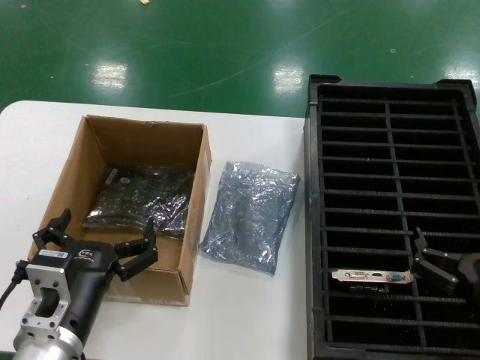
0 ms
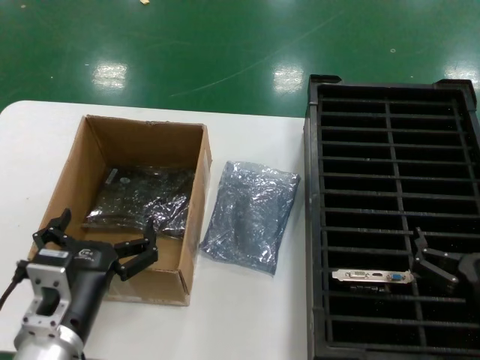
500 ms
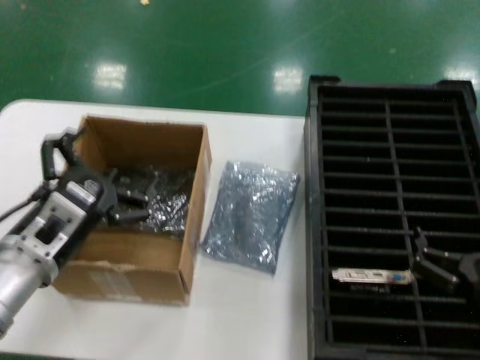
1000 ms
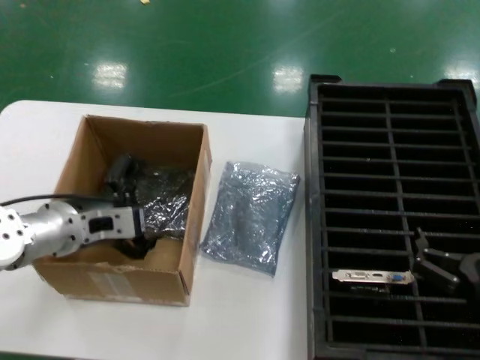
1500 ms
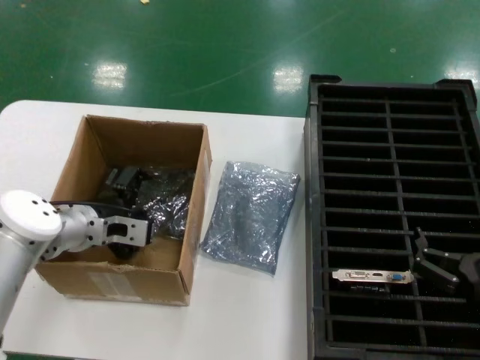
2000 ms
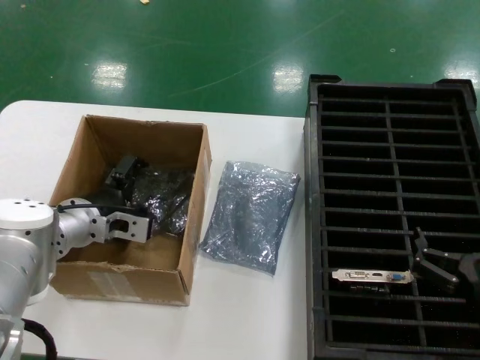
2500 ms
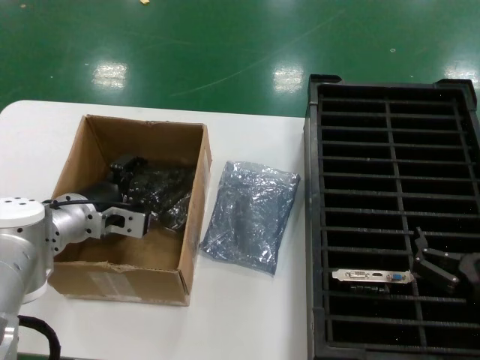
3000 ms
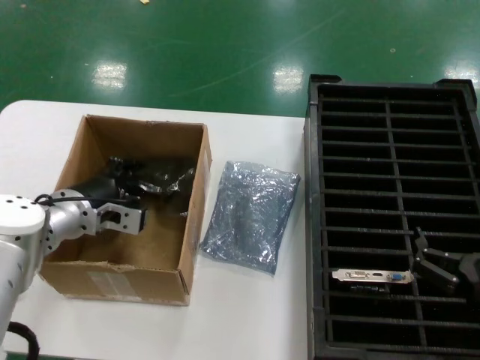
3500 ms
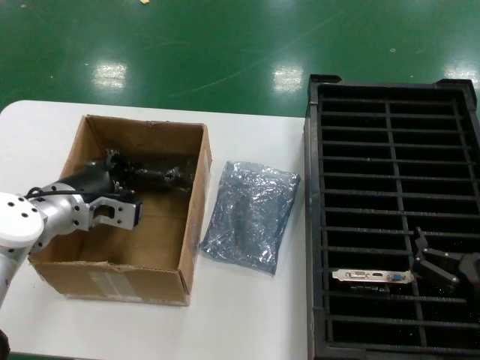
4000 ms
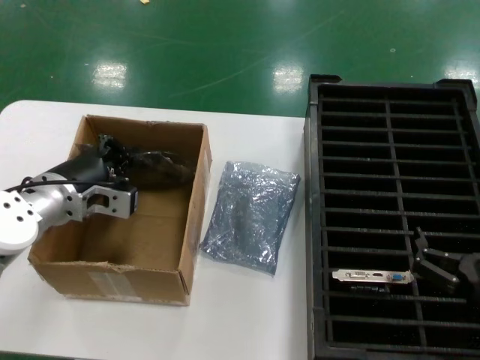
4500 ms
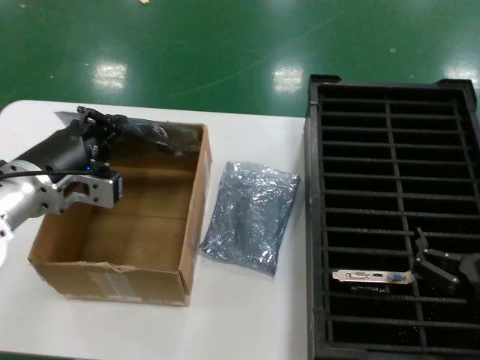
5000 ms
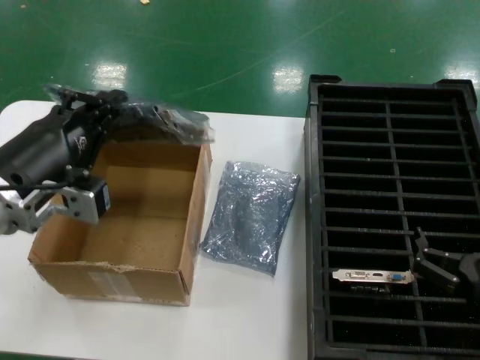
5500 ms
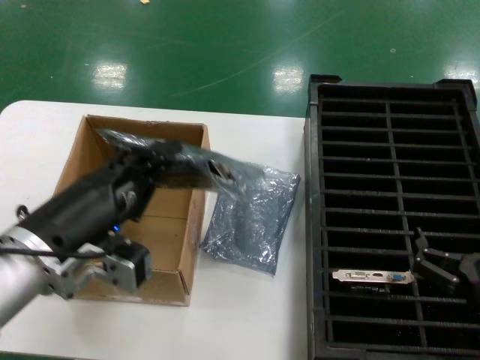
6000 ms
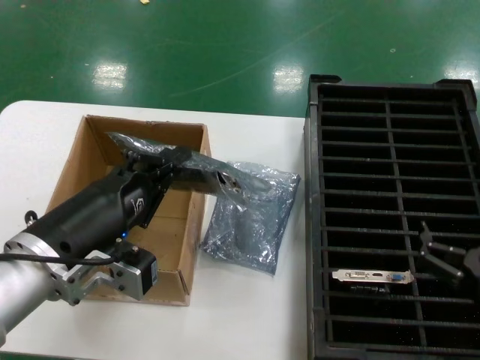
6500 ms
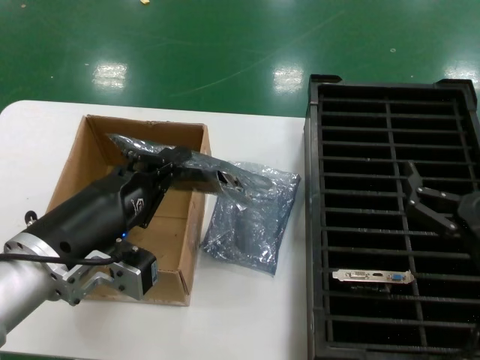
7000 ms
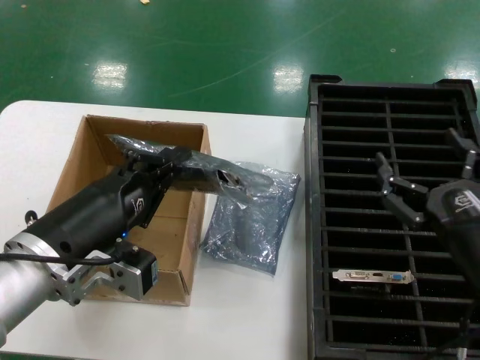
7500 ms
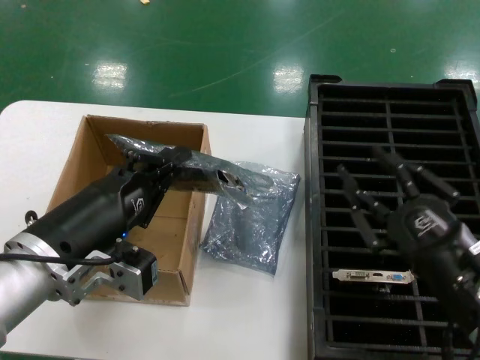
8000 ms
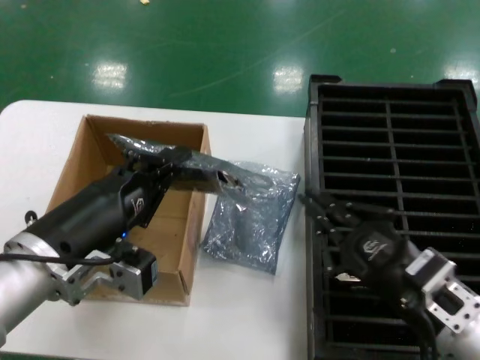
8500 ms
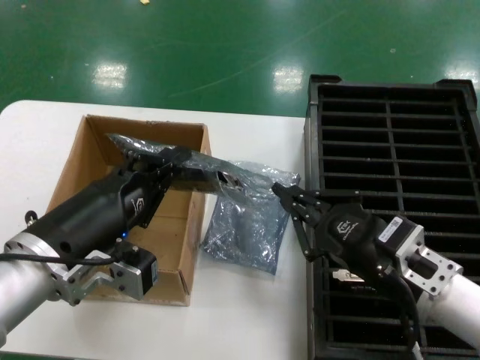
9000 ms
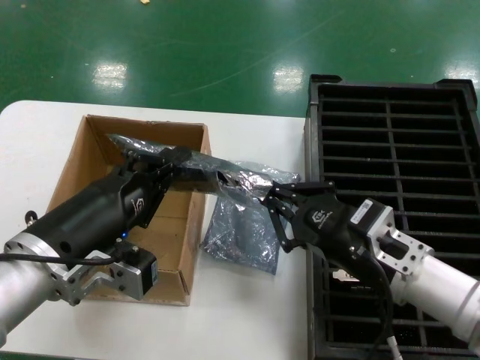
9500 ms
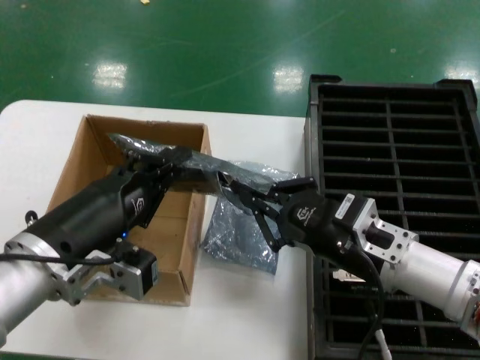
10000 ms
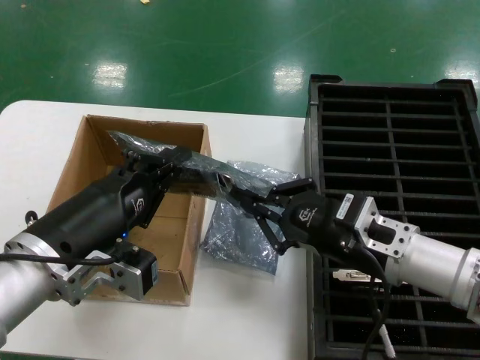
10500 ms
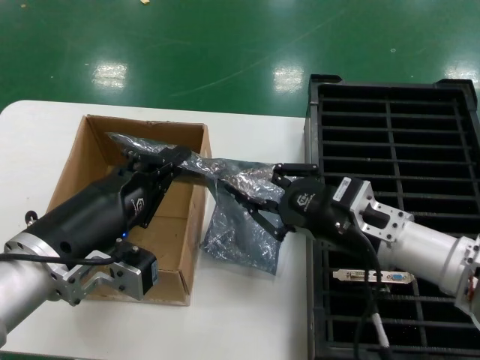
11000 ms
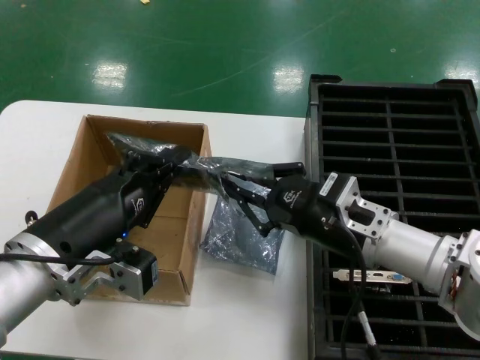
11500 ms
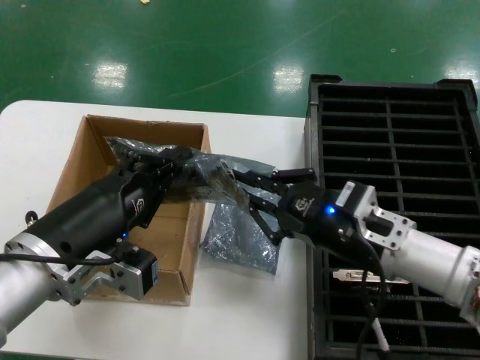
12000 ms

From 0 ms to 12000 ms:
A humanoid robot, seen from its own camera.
Task of the whole recording: take out graphics card from box remove packaging put into black container.
Step, from 0 ms to 3500 ms: Grasp the bag.
Step, from 4000 ms to 6500 ms: Lift the bag.
From 0 ms to 2000 ms: The left hand moves forward, approximately 20 cm.
From 2000 ms to 4000 ms: The hands move only a little.
From 4000 ms to 6000 ms: The left hand shifts approximately 20 cm backward.
From 6000 ms to 8000 ms: The right hand goes roughly 5 cm upward.
From 8000 ms to 10000 ms: The right hand travels forward and to the left by some 10 cm.
From 10000 ms to 12000 ms: The hands stay close to where they were, moving slightly.

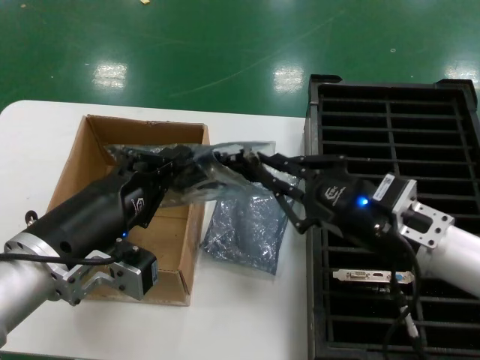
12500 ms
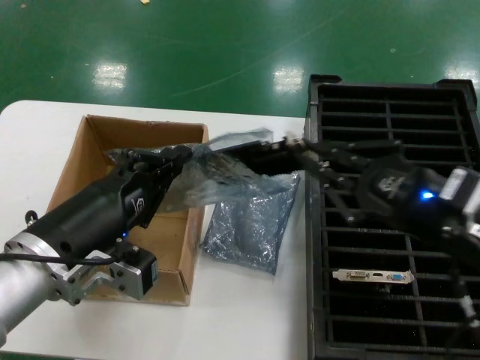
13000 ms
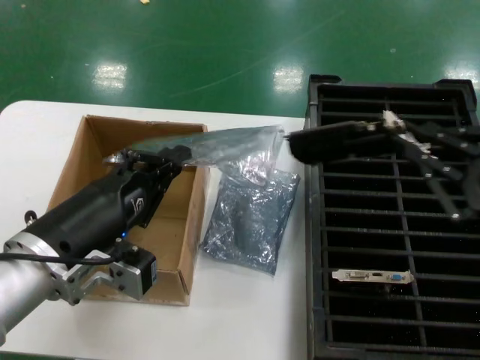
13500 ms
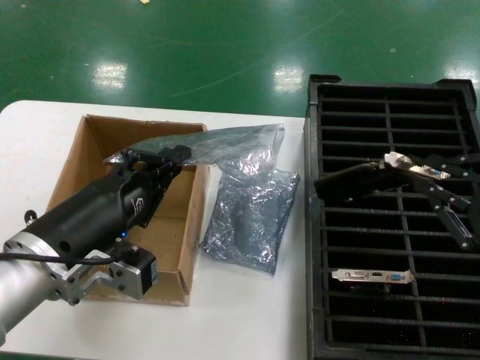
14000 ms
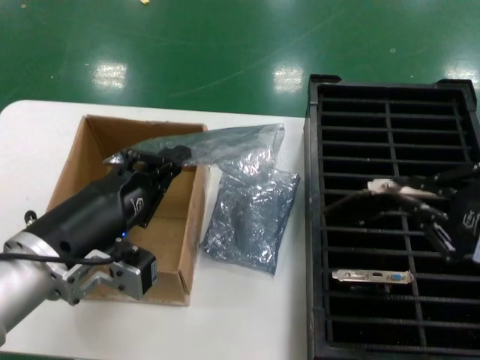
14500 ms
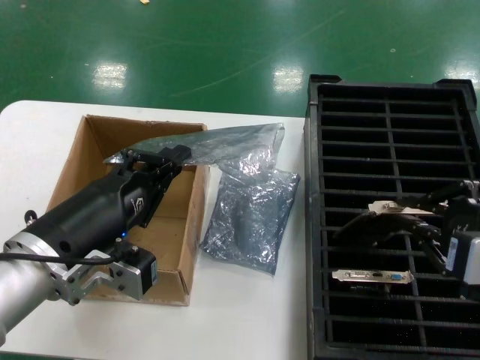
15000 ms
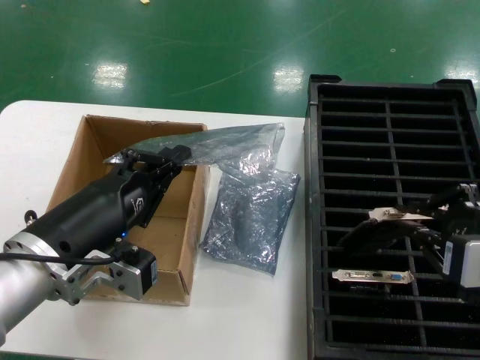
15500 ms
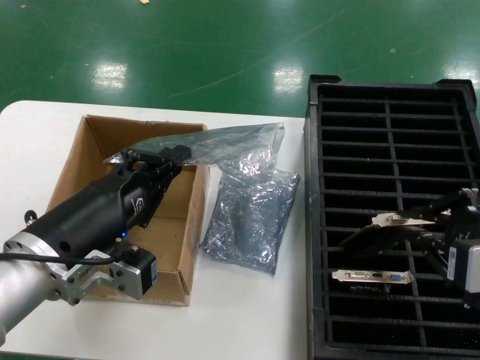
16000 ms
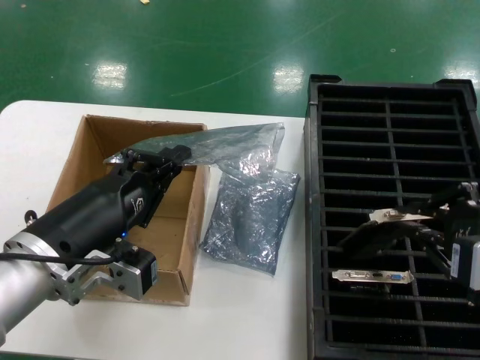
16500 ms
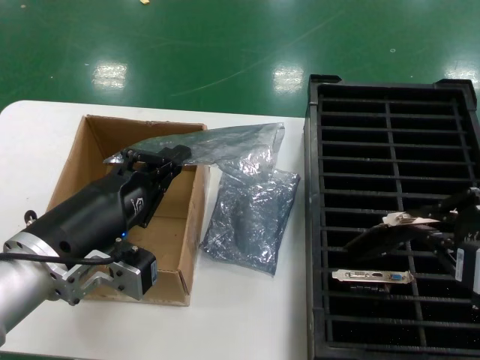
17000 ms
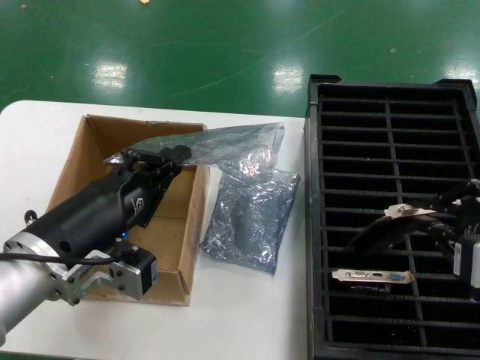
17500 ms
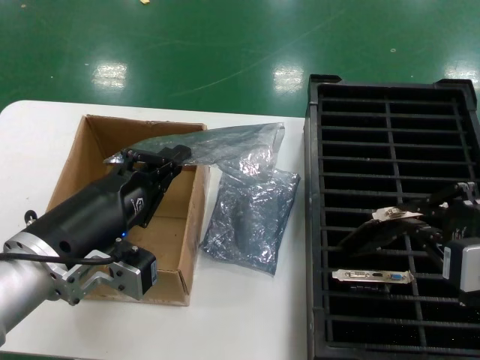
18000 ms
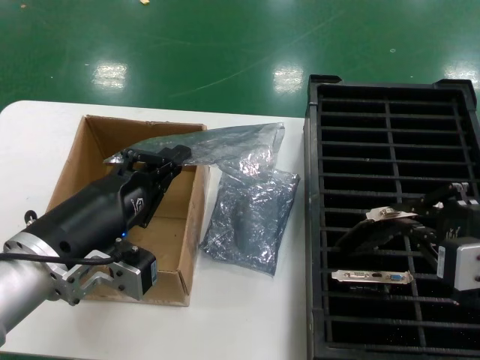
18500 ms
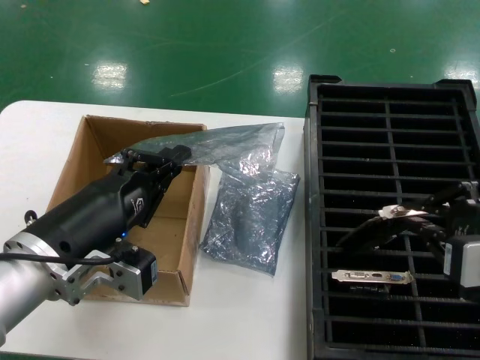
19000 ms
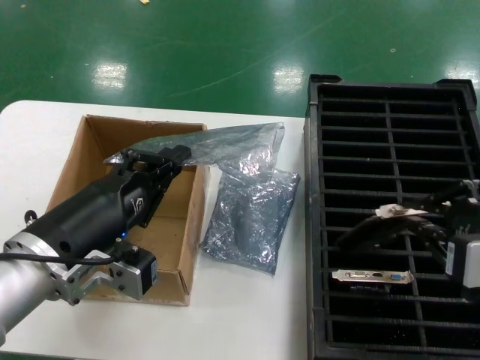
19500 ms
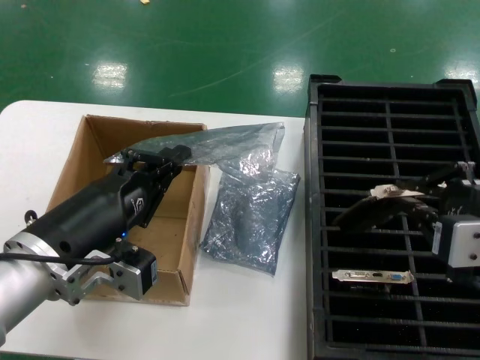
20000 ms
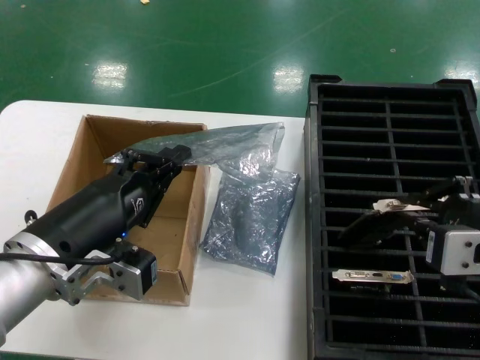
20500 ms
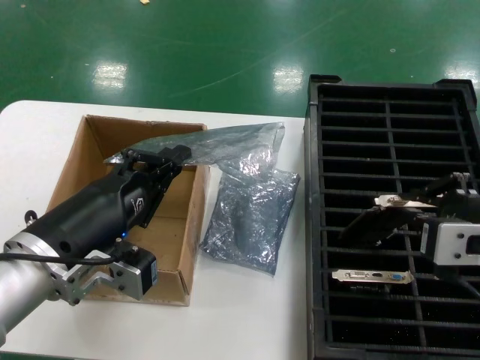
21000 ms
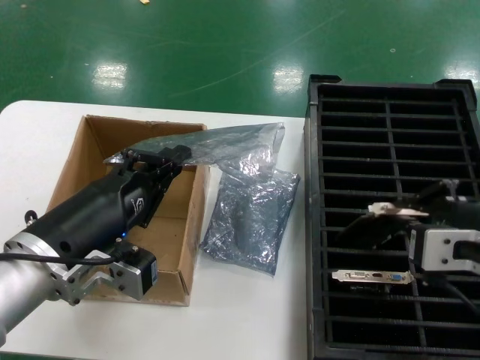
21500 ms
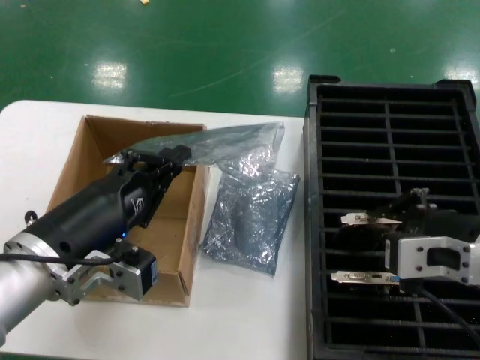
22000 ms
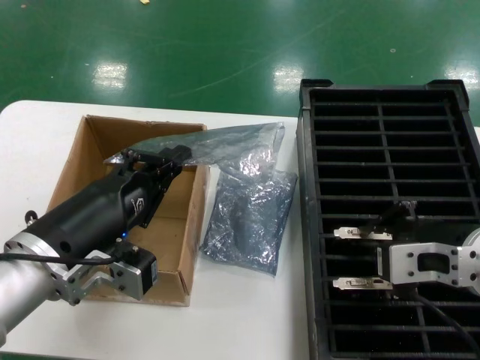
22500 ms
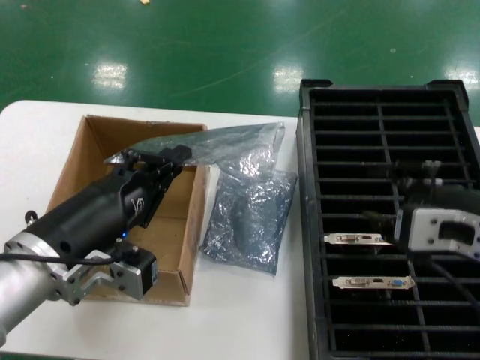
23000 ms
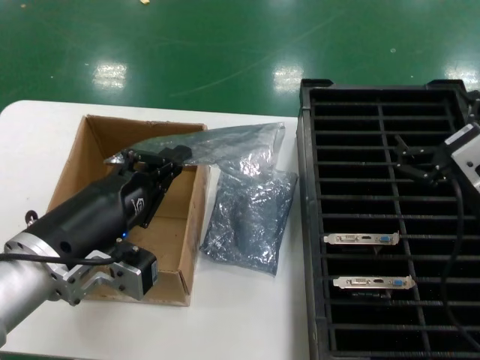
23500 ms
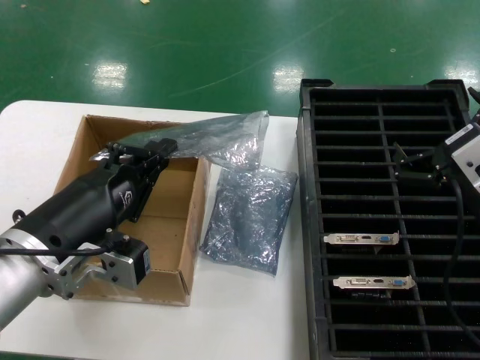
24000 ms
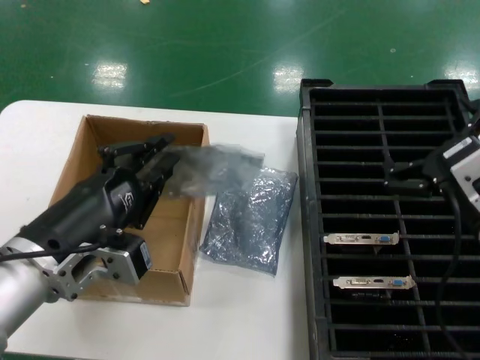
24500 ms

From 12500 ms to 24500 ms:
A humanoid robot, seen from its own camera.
Task of the whole recording: take out graphics card from box remove packaging put into black container.
Step, from 14000 ms to 22500 ms: Place the hard disk in the hard disk enclosure.
From 12500 ms to 14500 ms: The right hand heads backward, upward and to the right, covering some 15 cm.
From 14500 ms to 20500 ms: The hands make only small movements.
From 20500 ms to 22500 ms: The right hand moves roughly 5 cm.

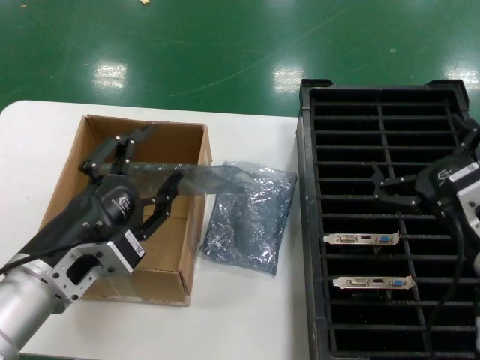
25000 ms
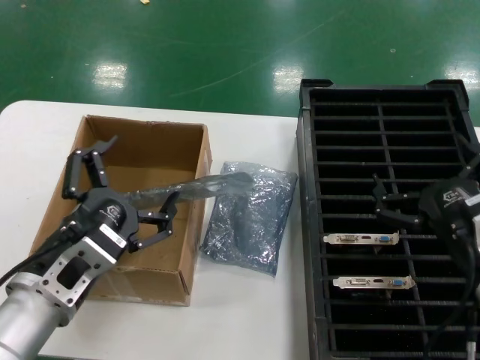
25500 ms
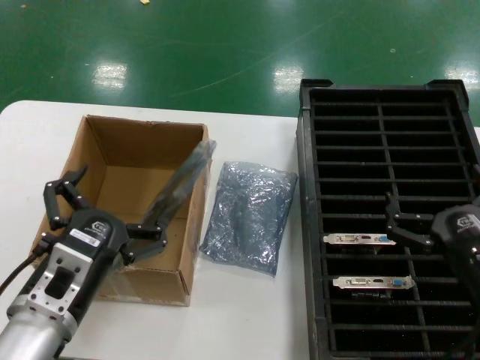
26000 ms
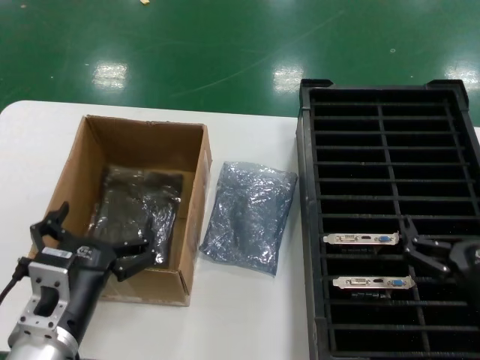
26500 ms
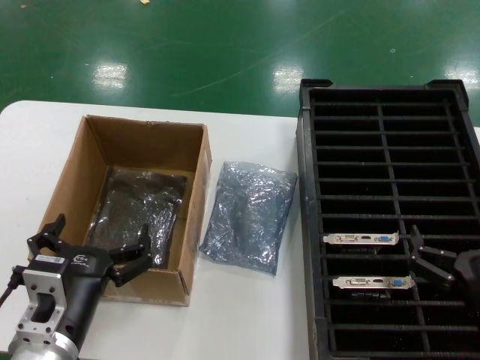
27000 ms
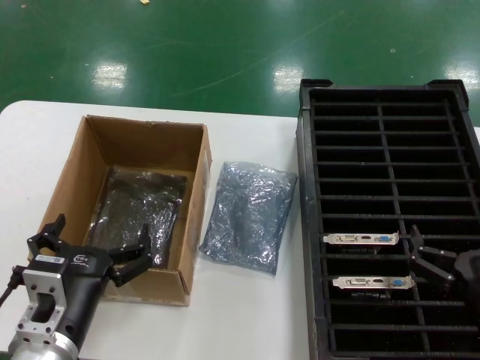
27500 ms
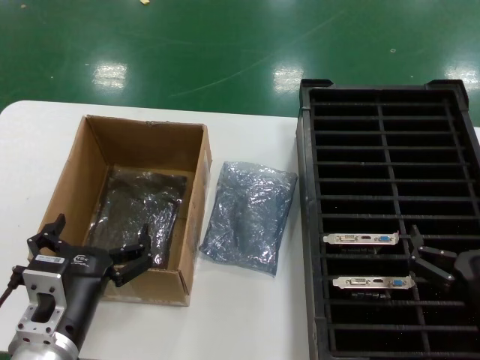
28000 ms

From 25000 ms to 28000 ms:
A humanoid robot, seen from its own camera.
Task of the whole recording: take out graphics card from box remove packaging put into black container.
From 25000 ms to 26500 ms: The left hand travels downward by roughly 10 cm. The right hand goes some 10 cm downward and backward.
From 26500 ms to 28000 ms: The hands stay close to where they were, moving slightly.
